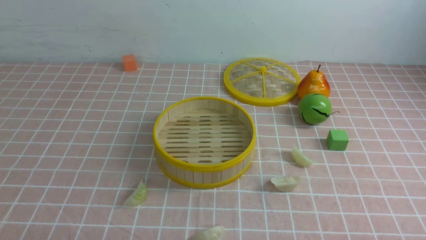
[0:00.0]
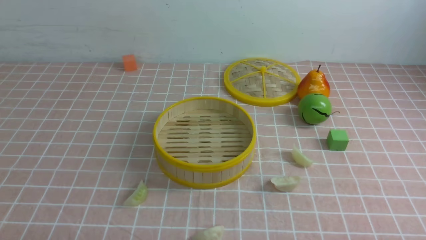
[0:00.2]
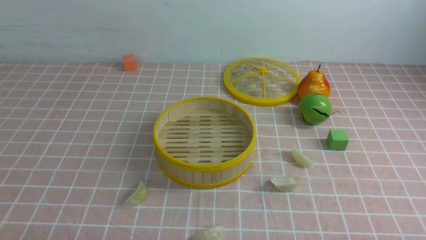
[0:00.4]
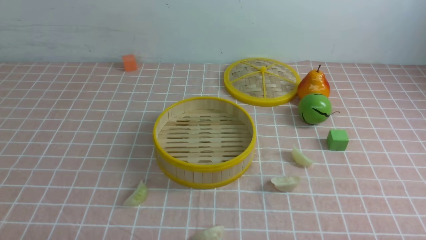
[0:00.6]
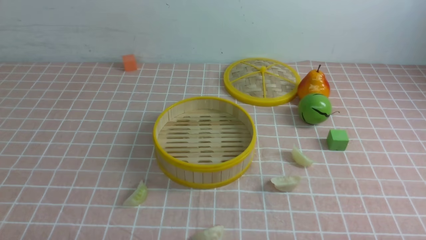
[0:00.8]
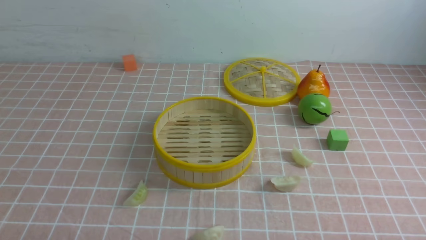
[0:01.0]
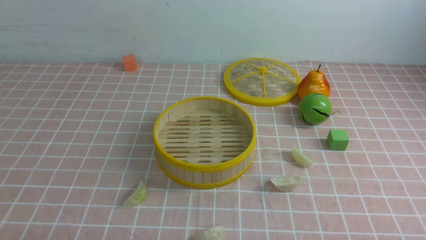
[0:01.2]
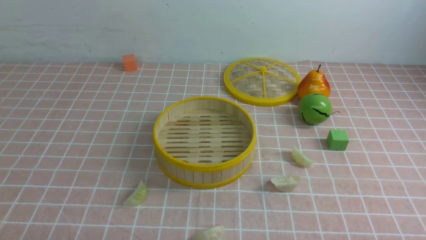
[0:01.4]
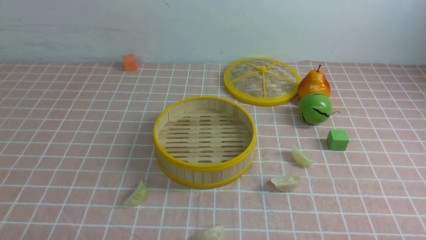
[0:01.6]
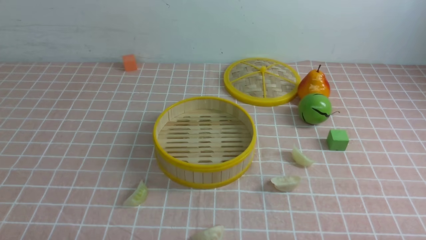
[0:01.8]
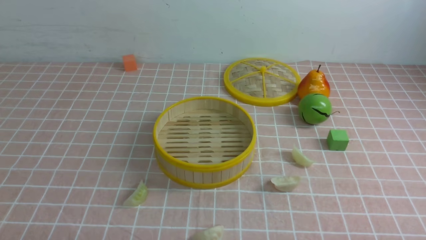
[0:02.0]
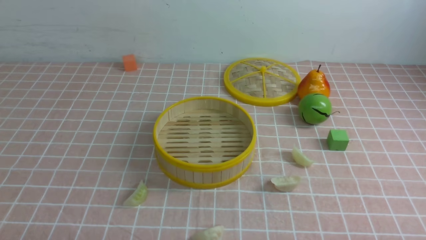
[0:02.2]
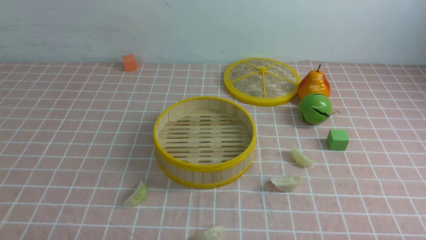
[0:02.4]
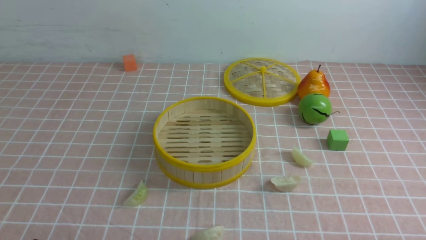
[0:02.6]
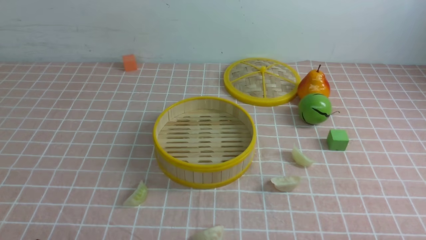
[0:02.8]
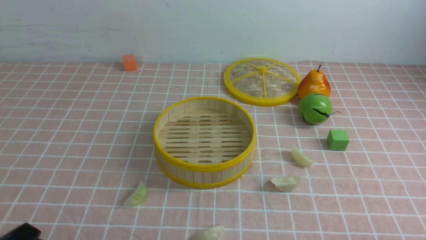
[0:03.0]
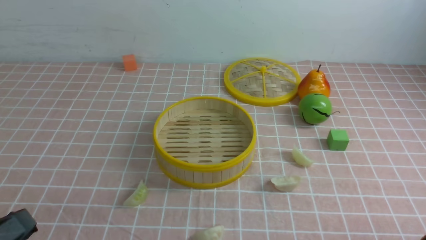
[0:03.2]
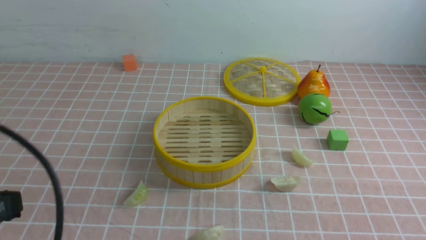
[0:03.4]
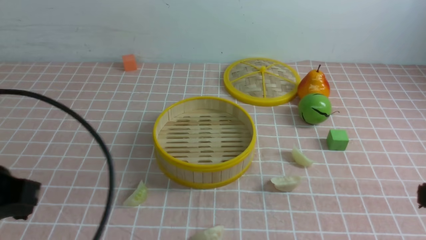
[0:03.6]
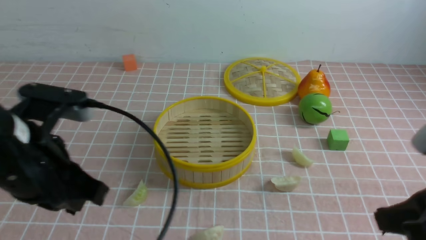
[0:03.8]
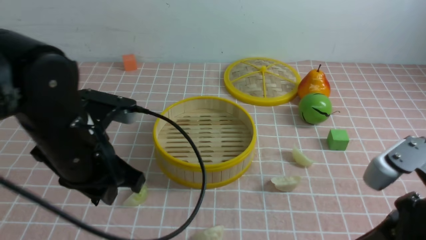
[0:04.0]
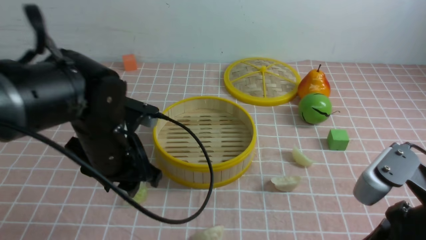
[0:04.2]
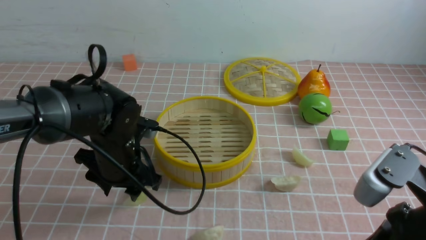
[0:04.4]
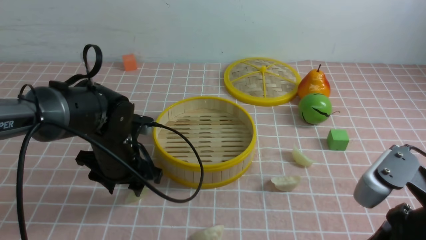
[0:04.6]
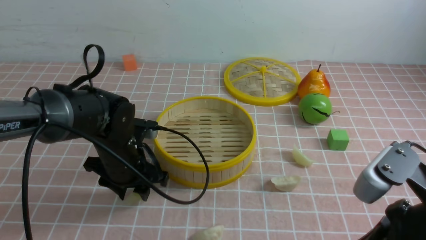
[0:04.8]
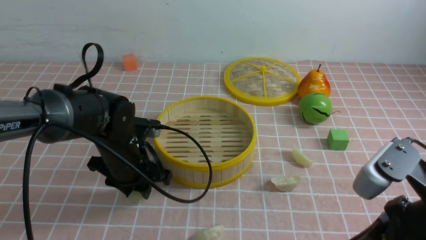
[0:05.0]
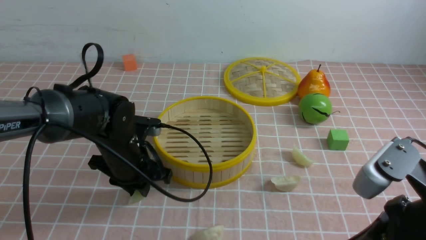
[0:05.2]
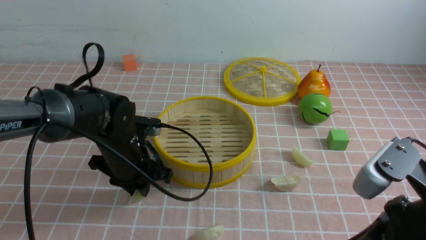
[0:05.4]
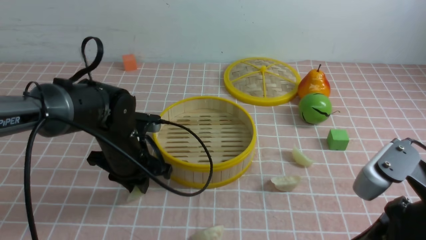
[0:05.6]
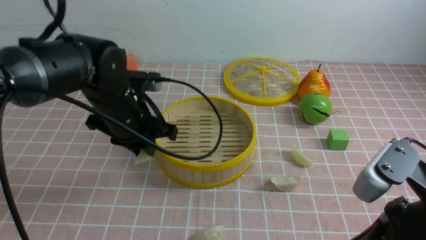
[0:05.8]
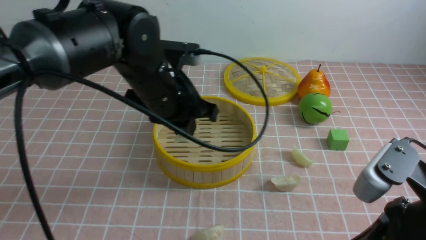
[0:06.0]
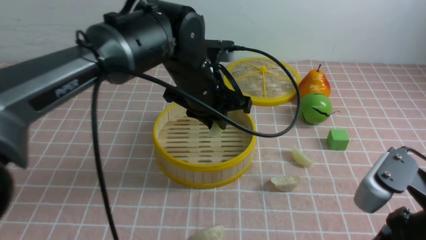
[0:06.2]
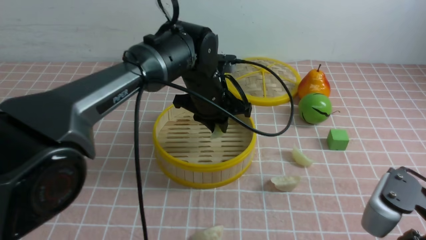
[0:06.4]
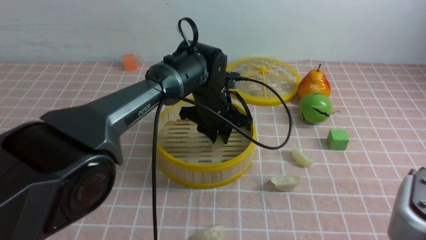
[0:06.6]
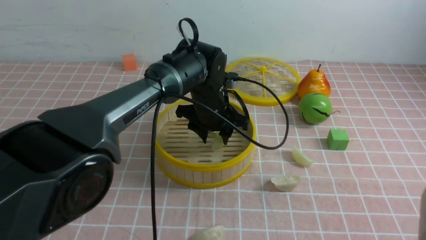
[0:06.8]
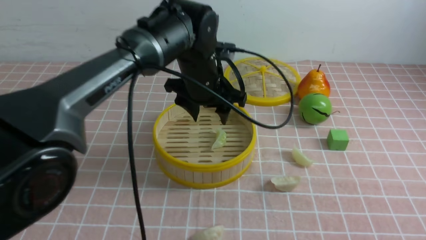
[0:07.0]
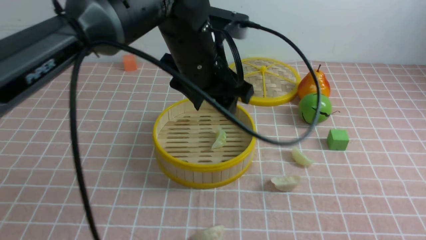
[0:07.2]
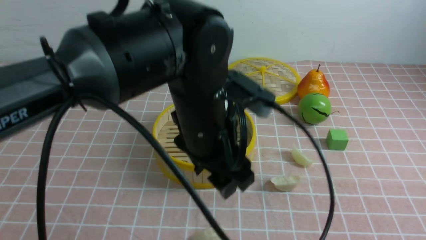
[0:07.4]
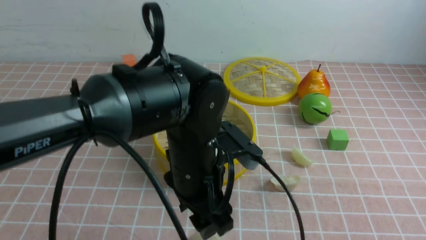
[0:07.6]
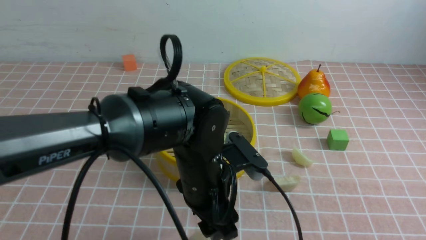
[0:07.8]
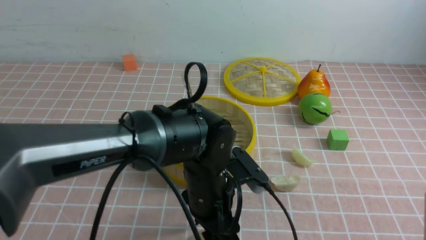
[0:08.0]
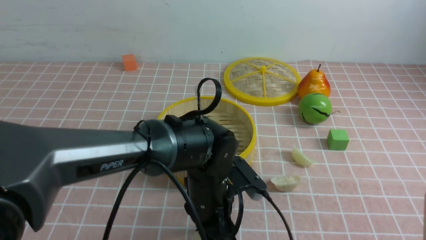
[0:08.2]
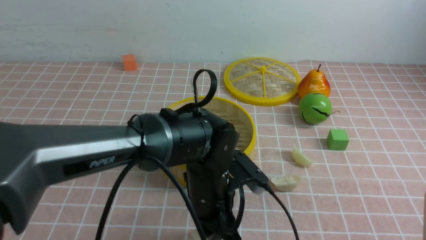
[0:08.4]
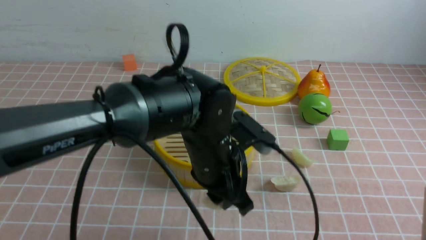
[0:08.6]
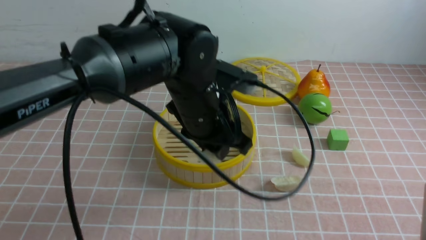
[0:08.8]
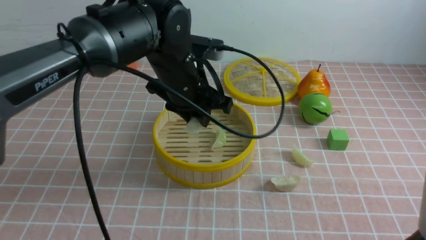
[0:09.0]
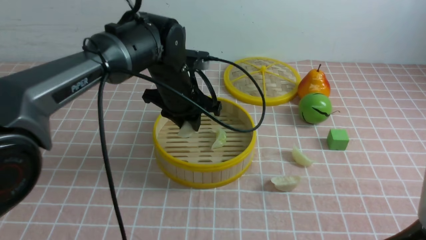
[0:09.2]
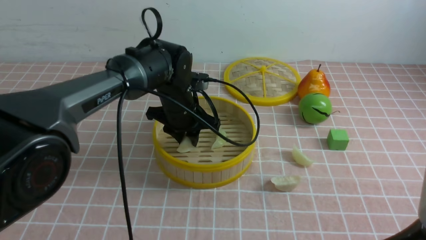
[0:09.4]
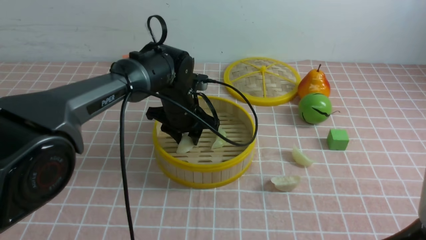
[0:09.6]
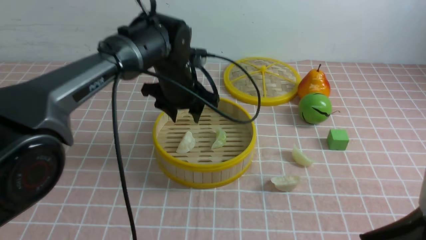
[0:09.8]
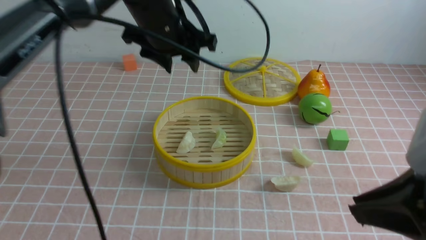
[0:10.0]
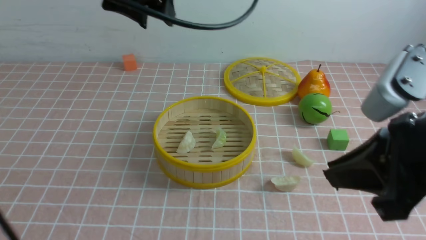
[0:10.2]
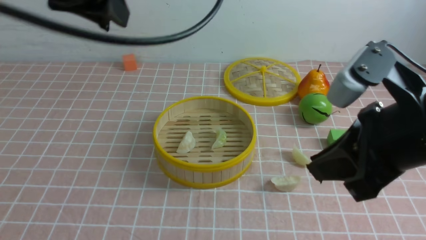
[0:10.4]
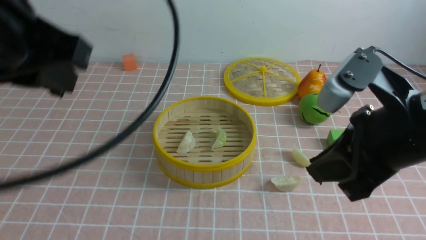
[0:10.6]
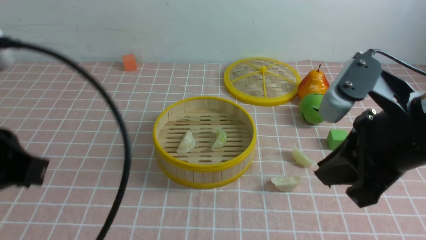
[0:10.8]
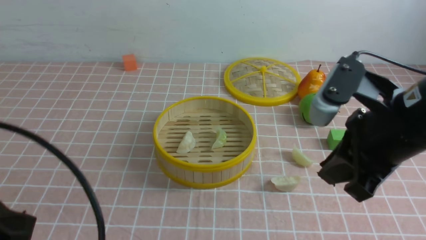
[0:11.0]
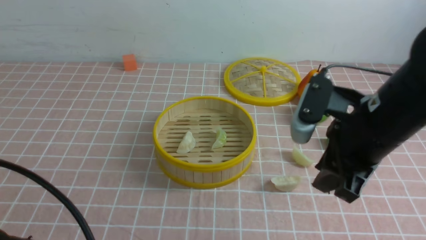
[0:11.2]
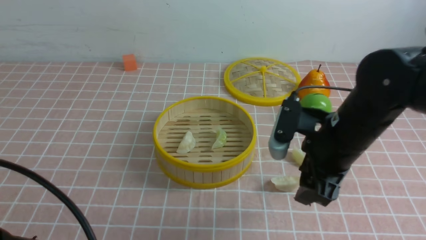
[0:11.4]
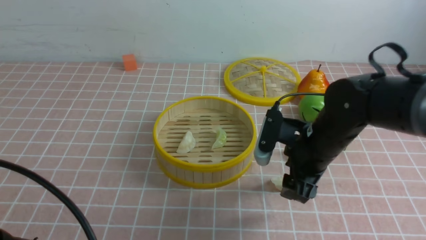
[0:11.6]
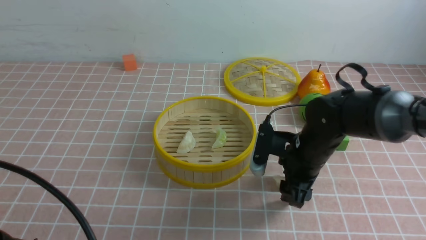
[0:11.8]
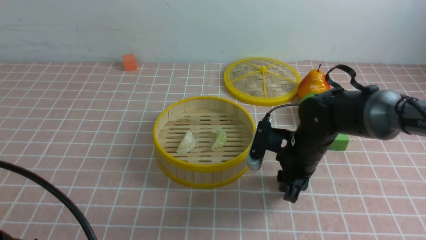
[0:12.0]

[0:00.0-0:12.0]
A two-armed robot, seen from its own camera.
Task of the whole recording: put the dumplings into the steamer on the table with the pink tablecloth.
Step, 0.0 to 5.6 s: use the left arm to grab a dumpling.
Step, 5.8 to 6.8 s: use the left arm to put the dumpling into the steamer.
Step, 7.0 to 8.4 s: use the left arm to grab a dumpling.
Step, 8.6 to 9.6 s: use the left arm to put the dumpling into the steamer.
Step, 9.8 to 12.0 s: use the right arm to grab a dumpling.
0.0 to 1.6 s: Both grippers stay put.
3.0 to 4.4 s: The right gripper heads upward, forward and to the left, covering about 15 cm, and closes up. Meanwhile the left gripper heads forward, covering some 25 cm, and opens.
4.4 to 6.0 s: The left gripper goes roughly 10 cm upward and to the right, and closes.
6.0 to 7.6 s: The right gripper goes about 5 cm backward; the left gripper goes some 10 cm backward and to the right, and opens its fingers.
7.6 to 9.0 s: The left gripper goes some 10 cm forward, and closes up.
9.0 to 10.4 s: The right gripper shifts roughly 10 cm forward, while the left gripper shifts about 25 cm upward, backward and to the left.
10.4 to 12.0 s: The left gripper goes about 20 cm backward and downward. Meanwhile the right gripper shifts roughly 25 cm downward and forward, and opens its fingers.

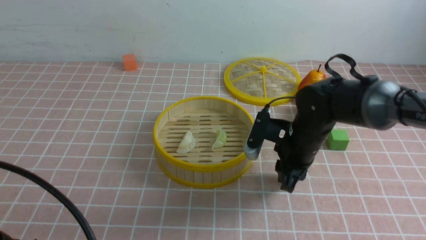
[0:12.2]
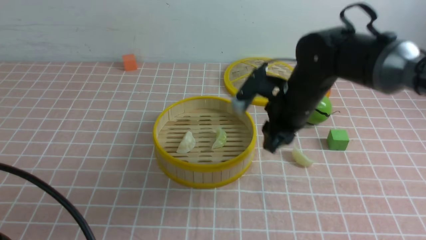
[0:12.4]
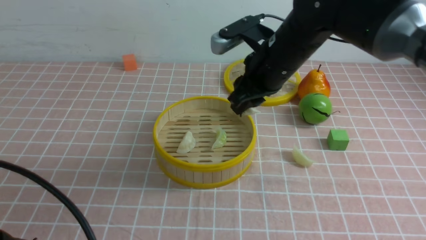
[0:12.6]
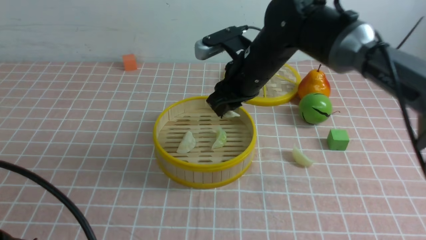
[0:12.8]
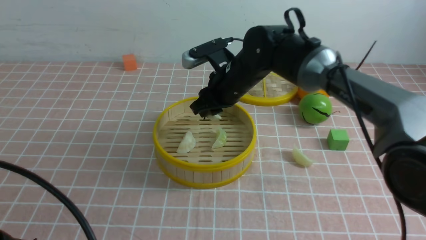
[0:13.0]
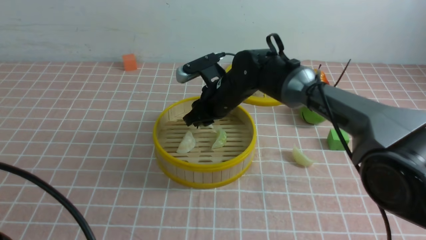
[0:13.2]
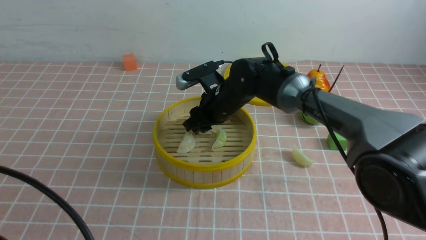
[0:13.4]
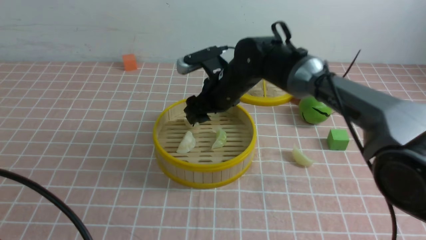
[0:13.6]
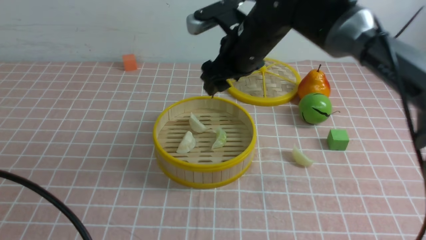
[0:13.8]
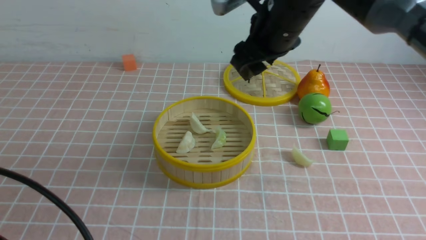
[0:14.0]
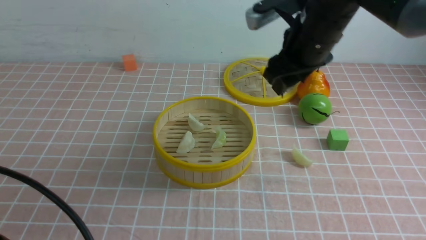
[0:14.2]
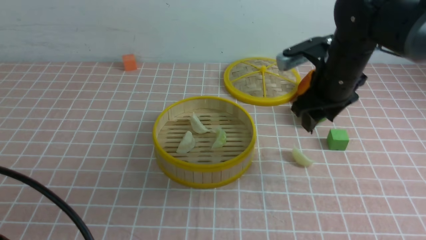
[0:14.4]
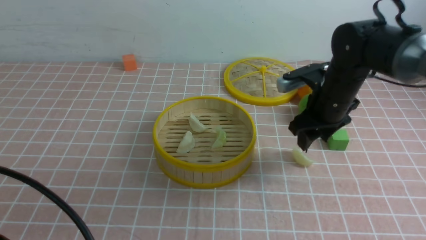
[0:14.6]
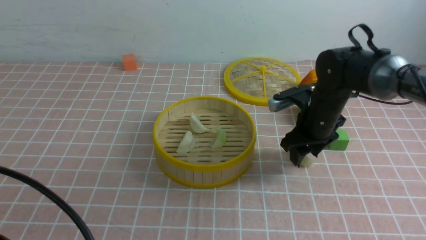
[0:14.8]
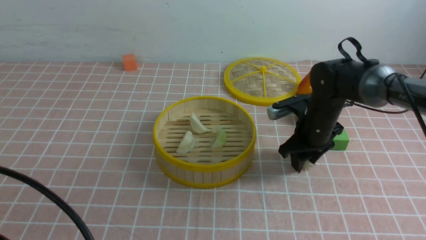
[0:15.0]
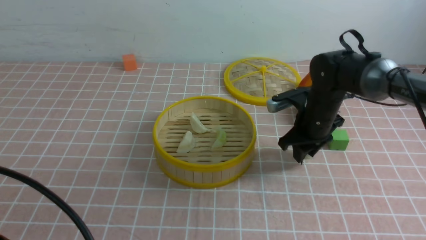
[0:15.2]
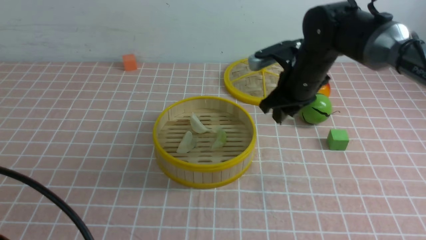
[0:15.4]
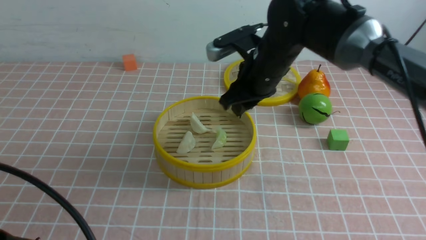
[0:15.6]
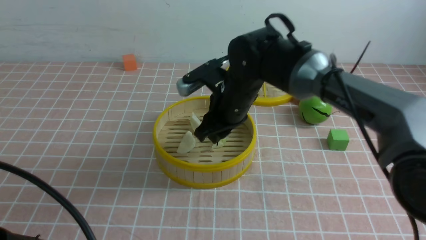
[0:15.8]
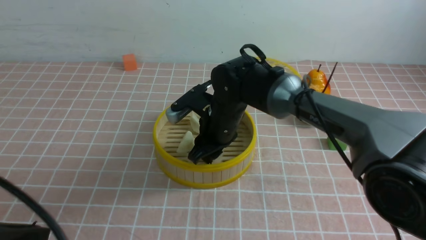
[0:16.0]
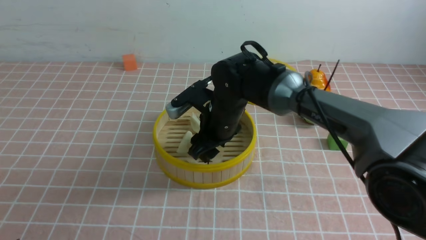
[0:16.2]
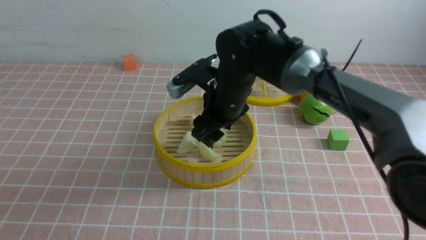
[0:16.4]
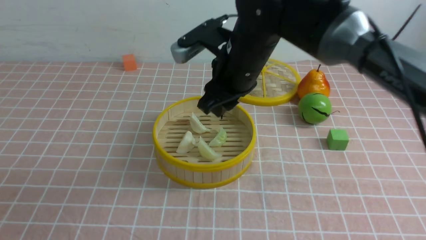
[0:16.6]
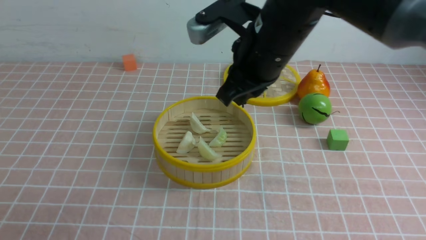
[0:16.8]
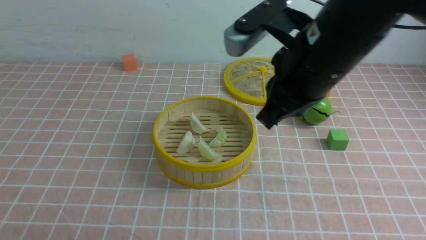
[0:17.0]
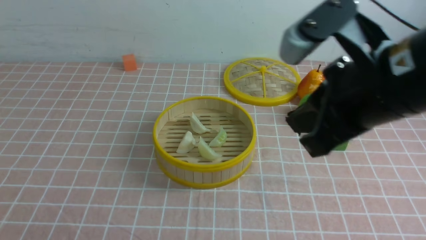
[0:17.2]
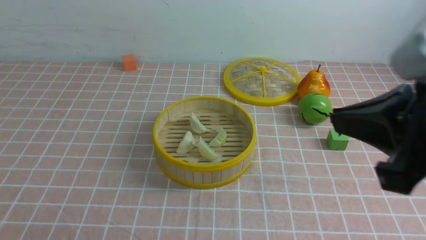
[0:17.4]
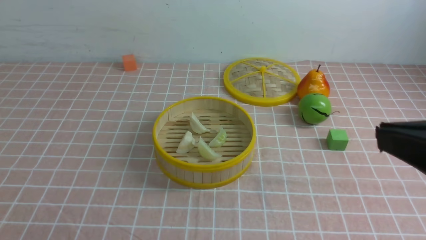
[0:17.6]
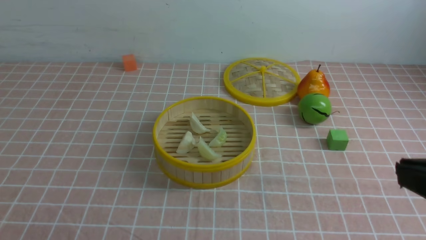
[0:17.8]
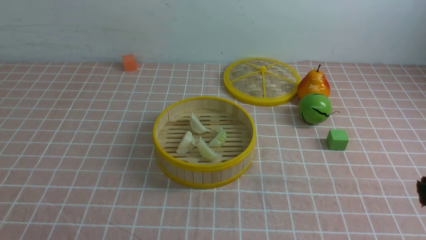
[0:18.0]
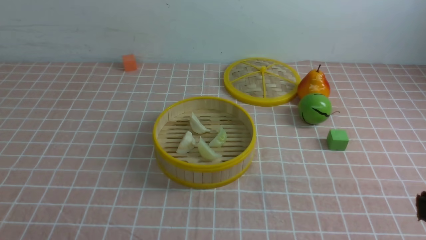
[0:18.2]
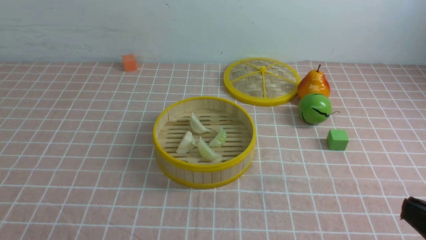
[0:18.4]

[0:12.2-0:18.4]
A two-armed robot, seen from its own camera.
Task of the whole recording: put the dumplings into the steamer on the table with the pink tablecloth.
Step, 12.2 to 13.6 s: use the right arm to put the dumpling into the steamer.
Step, 13.8 to 15.0 s: use the right arm to grab a dumpling.
Step, 15.2 to 16.2 s: use the right arm to put the dumpling into the steamer.
12.2 to 13.8 s: The right gripper swings up and down, roughly 10 cm each way, with 2 reversals, and opens up.
13.8 to 15.4 s: The right gripper heads downward and to the right, covering approximately 10 cm, and closes.
15.4 to 16.8 s: The right gripper shifts roughly 15 cm upward, backward and to the left, and opens and closes again. The left gripper changes place by about 5 cm.
16.8 to 18.4 s: The right gripper travels backward and to the right by some 30 cm.
